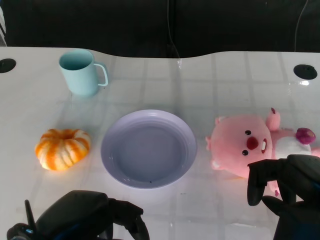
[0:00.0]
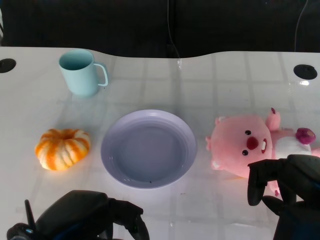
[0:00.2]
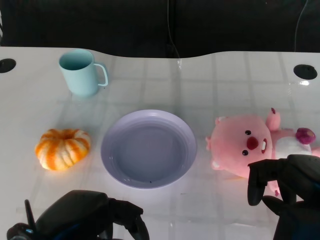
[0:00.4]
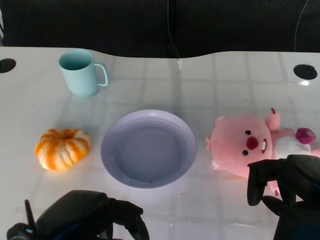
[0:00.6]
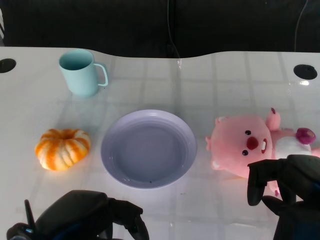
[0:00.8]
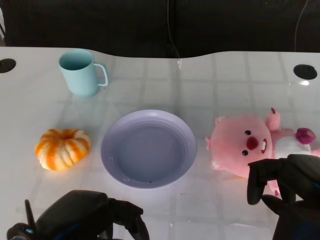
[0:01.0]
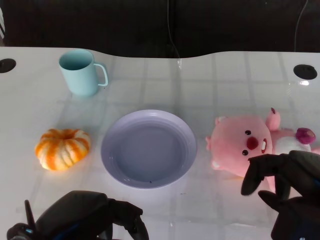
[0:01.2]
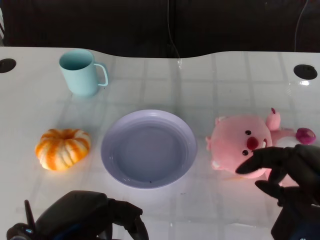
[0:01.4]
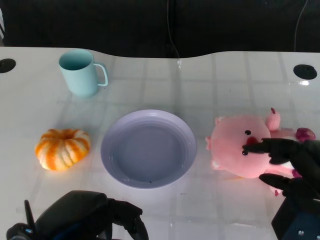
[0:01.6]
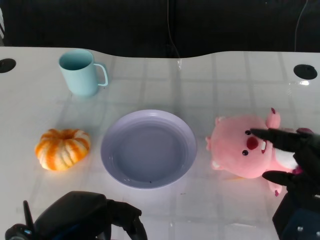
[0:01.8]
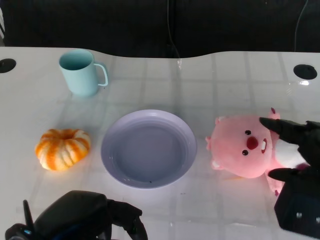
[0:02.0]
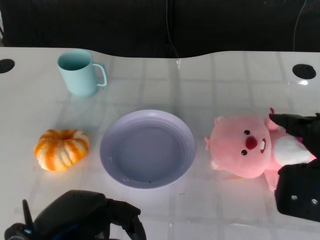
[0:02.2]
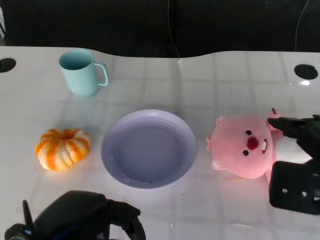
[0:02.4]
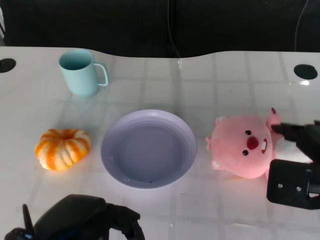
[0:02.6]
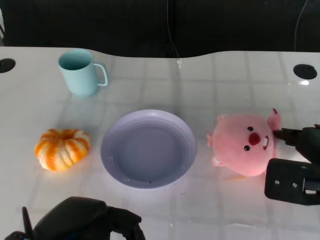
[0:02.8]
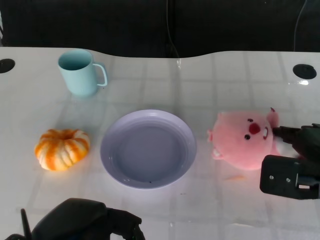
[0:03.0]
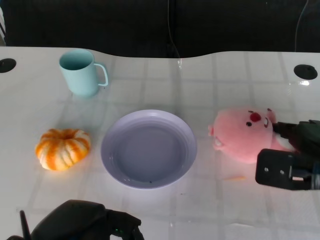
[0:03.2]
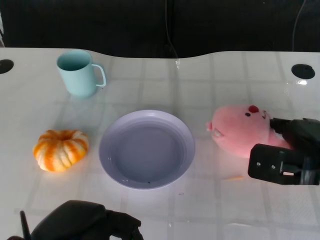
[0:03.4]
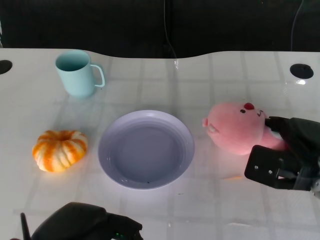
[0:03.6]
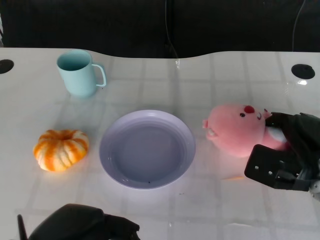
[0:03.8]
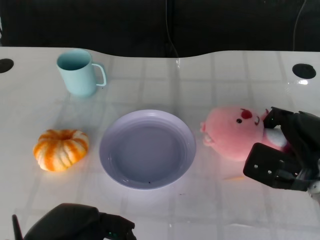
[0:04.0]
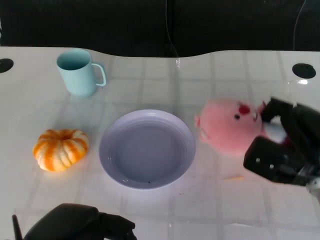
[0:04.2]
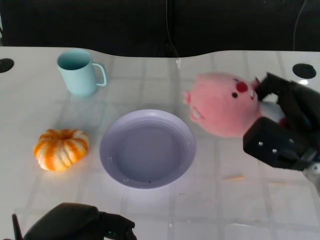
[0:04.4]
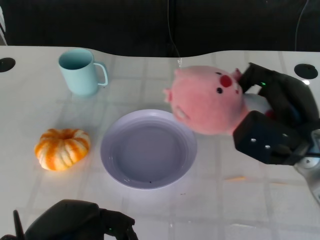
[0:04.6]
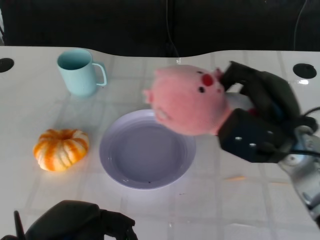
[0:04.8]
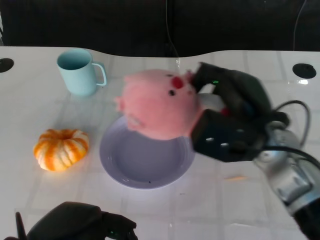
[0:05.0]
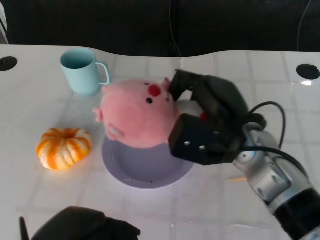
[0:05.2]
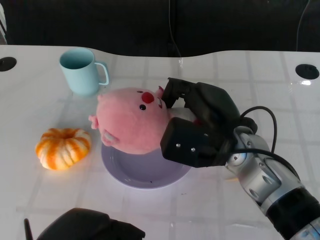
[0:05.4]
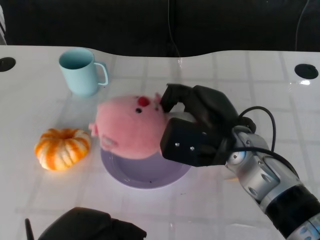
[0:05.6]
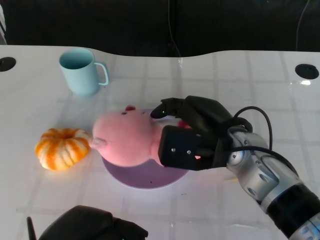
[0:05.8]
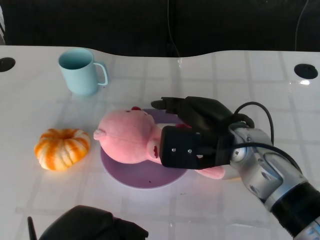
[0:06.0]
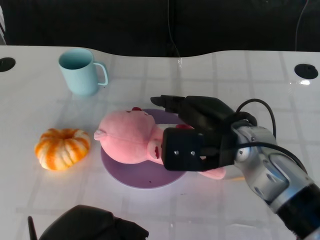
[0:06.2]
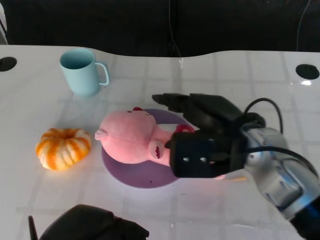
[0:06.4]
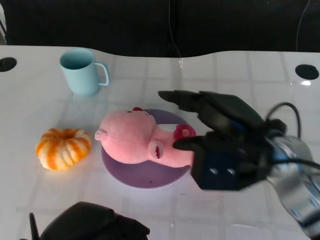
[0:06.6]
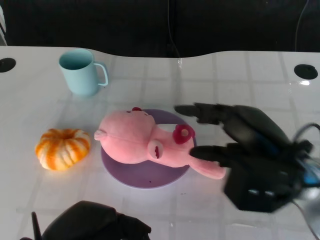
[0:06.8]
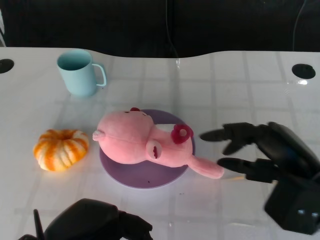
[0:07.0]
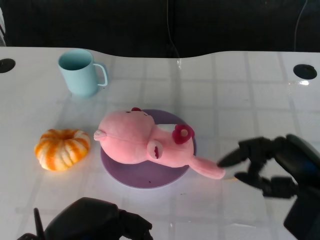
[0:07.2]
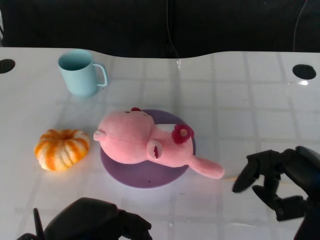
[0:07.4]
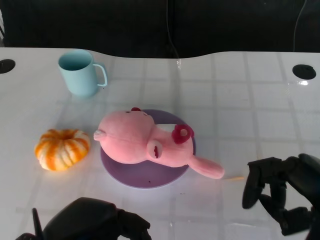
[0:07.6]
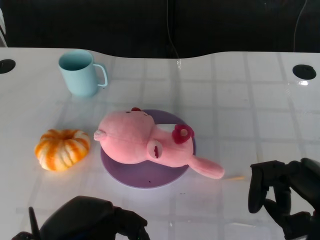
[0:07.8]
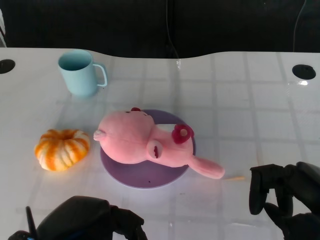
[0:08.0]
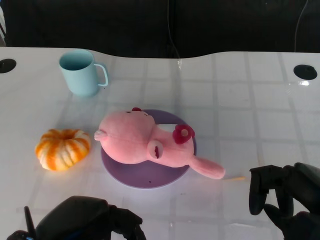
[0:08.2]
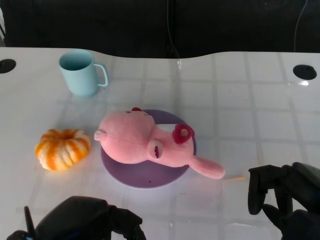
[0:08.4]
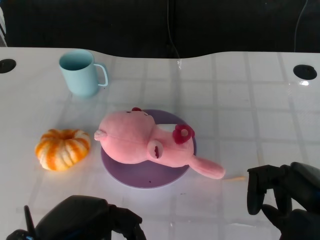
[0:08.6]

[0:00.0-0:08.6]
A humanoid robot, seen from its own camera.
Task of the whole recording: Pick up the doll on the other side of the plate and place it into the plate.
Step, 1.2 to 4.6 s: Grasp the pink doll with the right gripper.
Step, 4.8 to 6.8 s: Place the pink doll into the plate with the right gripper.
1.4 to 2.8 s: The right hand goes about 5 cm forward.
2.8 to 4.4 s: The right hand ends up about 5 cm from where it was.
4.4 to 5.8 s: The right hand is displaced to the left by about 10 cm.
5.8 to 7.2 s: The right hand heads to the right and backward, covering approximately 15 cm.
7.2 to 8.6 s: The hands stay close to where they were, moving slightly.

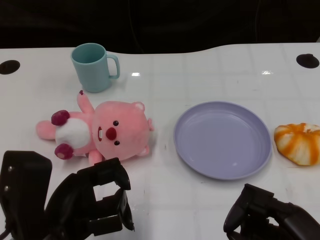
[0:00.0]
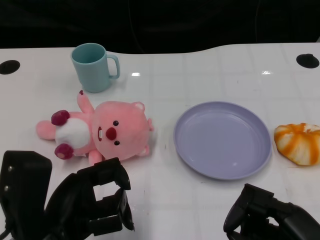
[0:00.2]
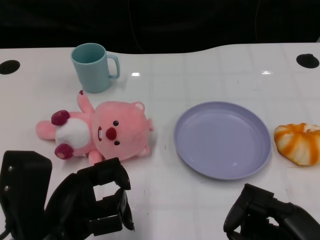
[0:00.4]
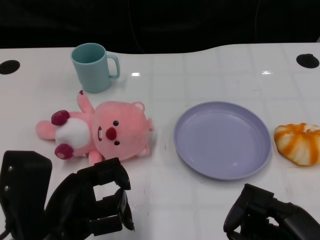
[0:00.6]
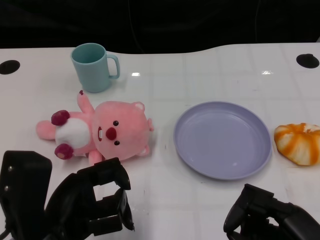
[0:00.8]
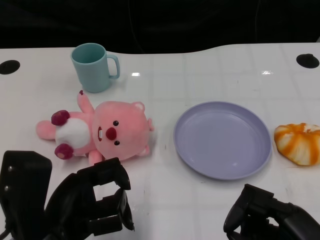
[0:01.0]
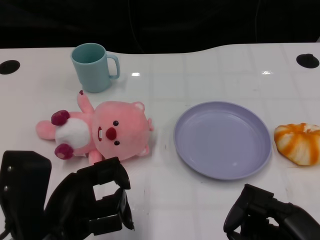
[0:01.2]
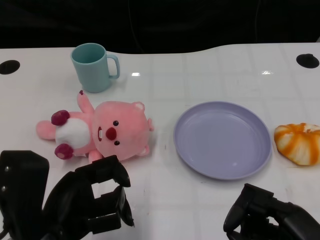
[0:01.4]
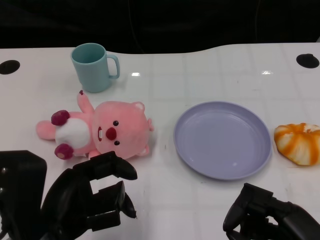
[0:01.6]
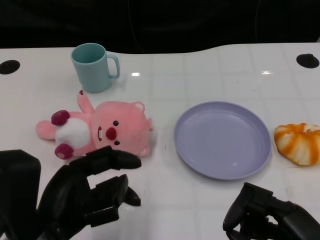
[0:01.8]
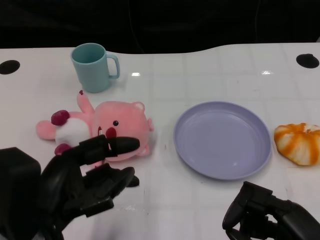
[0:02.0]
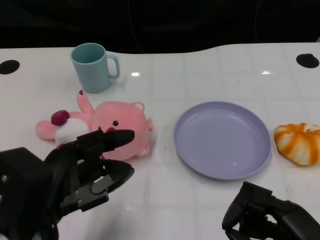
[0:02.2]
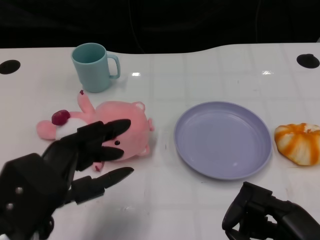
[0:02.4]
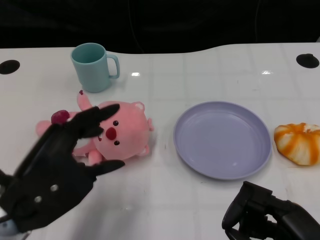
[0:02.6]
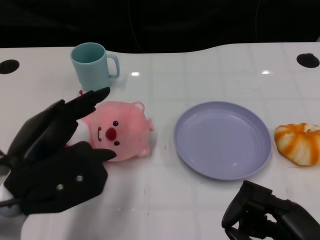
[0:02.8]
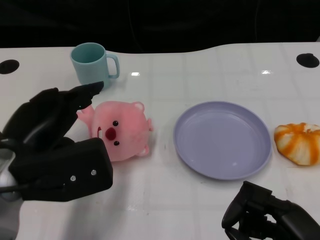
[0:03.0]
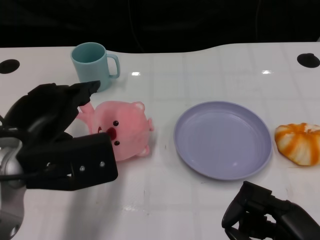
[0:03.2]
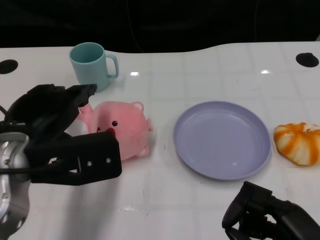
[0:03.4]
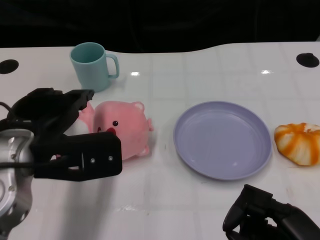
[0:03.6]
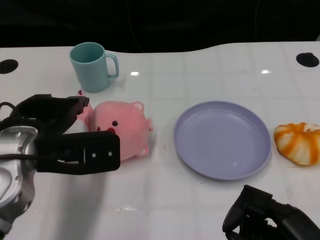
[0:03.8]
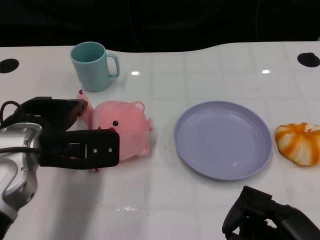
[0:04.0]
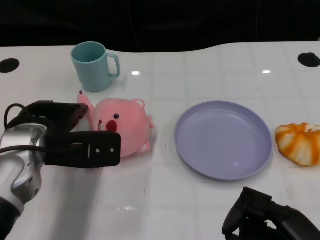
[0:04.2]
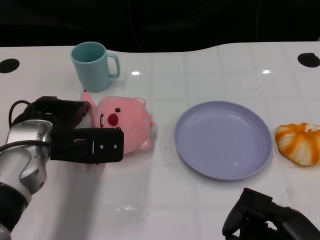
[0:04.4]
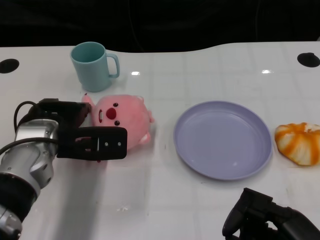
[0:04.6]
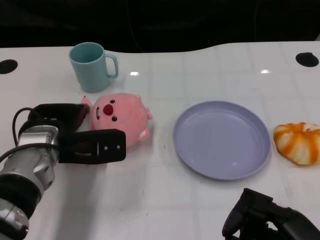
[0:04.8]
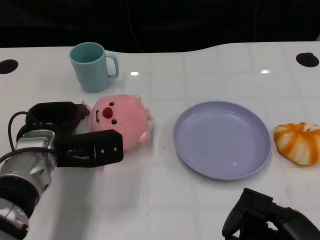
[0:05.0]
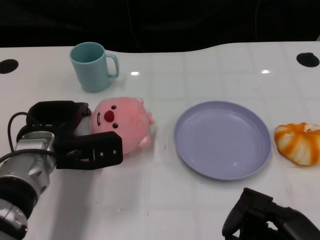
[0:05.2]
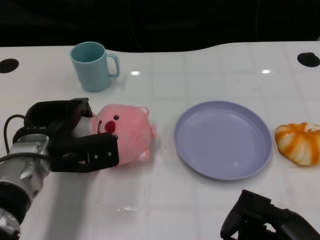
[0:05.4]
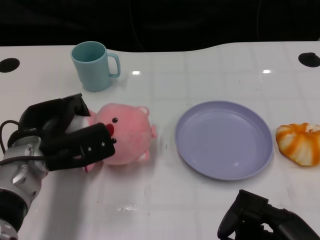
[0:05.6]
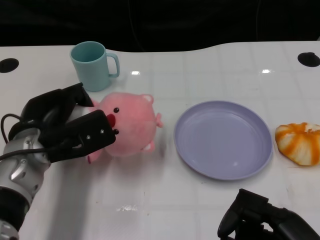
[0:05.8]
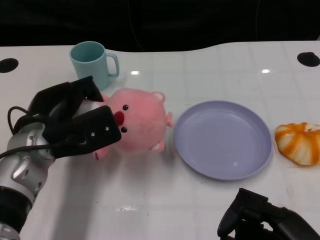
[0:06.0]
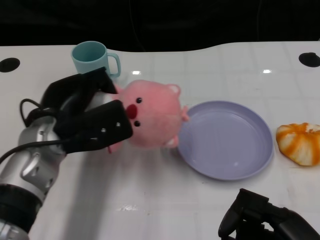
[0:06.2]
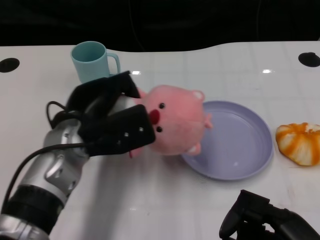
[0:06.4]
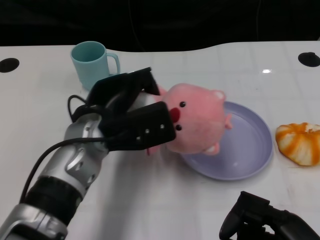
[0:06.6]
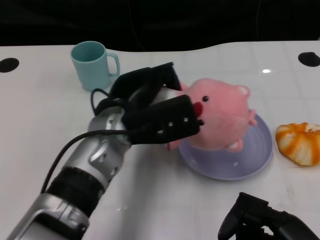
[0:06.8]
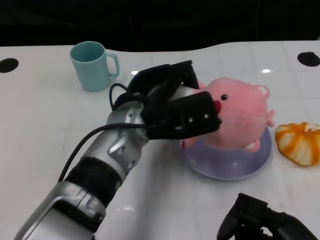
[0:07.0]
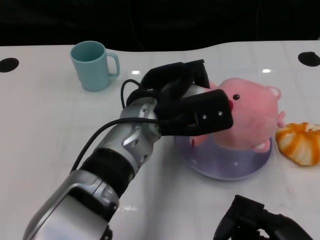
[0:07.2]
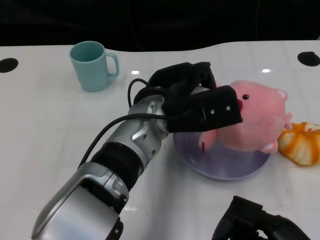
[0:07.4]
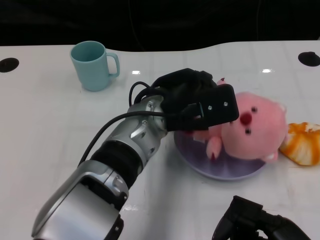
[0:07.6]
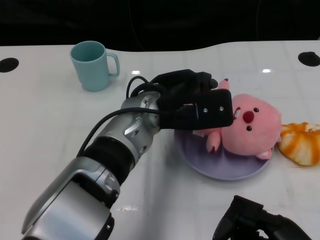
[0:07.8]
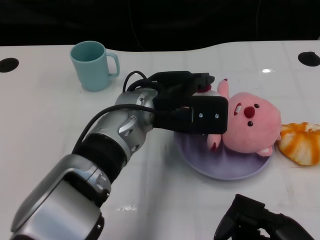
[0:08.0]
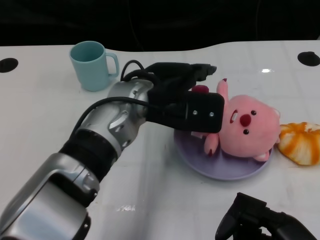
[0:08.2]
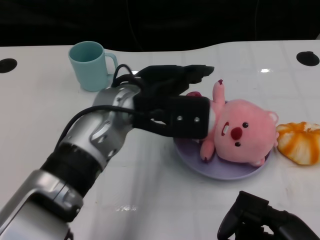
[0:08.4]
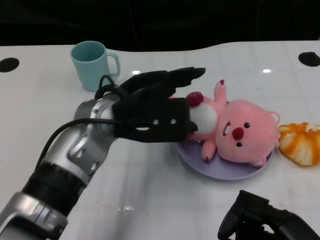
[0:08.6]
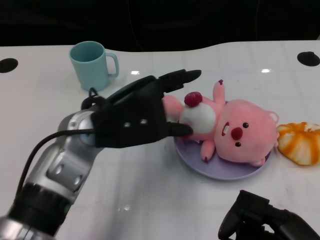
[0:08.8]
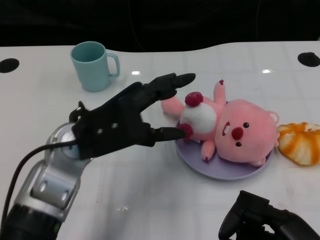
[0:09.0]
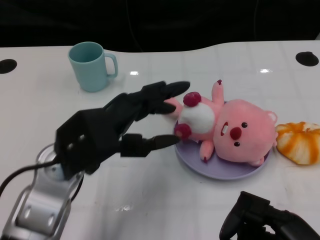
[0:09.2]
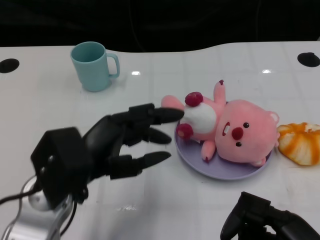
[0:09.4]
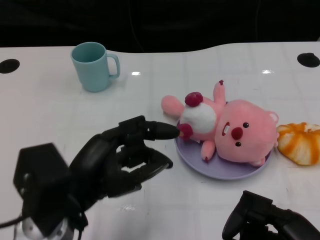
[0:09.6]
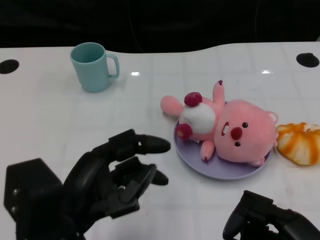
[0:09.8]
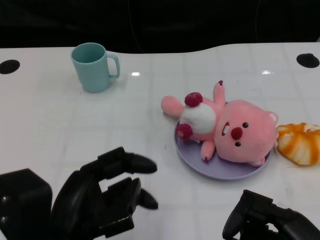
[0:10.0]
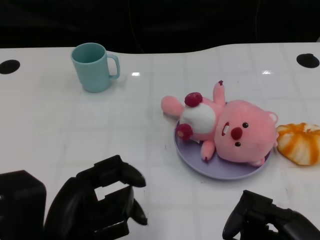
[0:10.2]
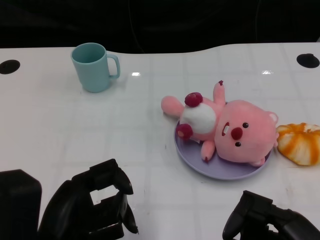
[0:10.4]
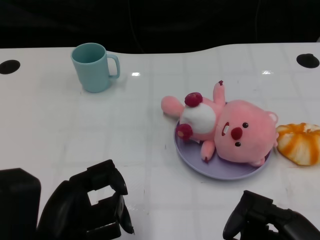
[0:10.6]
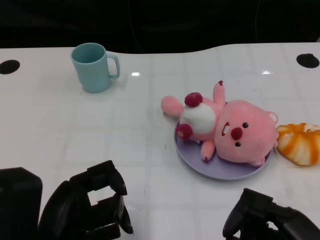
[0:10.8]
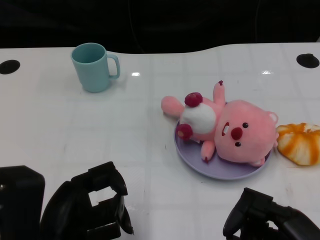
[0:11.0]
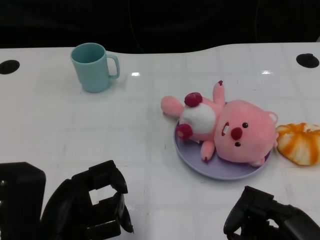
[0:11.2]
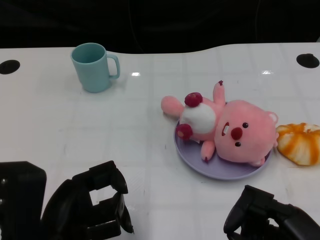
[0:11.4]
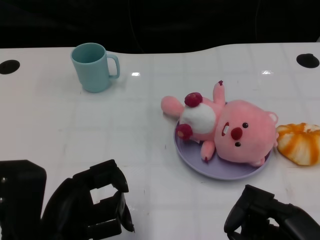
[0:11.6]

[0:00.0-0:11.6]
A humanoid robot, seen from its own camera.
Task of the whole recording: Pick up the doll on one side of the plate and place it into the plate.
Step, 1.4 to 6.0 s: Grasp the pink doll with the left gripper.
Step, 6.2 to 8.0 s: Place the pink doll into the plate with the left gripper.
1.4 to 2.8 s: The left hand changes place by about 5 cm.
2.8 to 4.4 s: The left hand goes some 10 cm forward.
5.8 to 7.2 s: The left hand travels to the right by approximately 15 cm.
7.2 to 8.8 s: The left hand shifts some 10 cm to the left.
8.8 to 10.2 s: The left hand goes about 15 cm backward.
10.2 to 11.6 s: The hands move only a little.

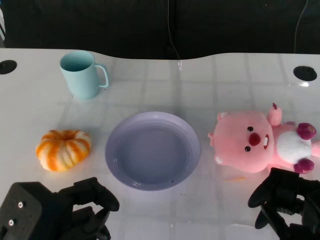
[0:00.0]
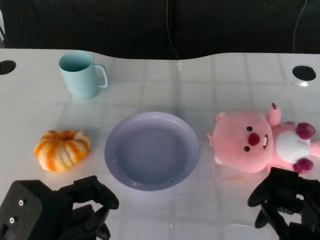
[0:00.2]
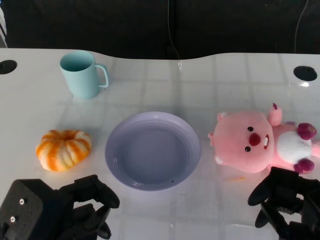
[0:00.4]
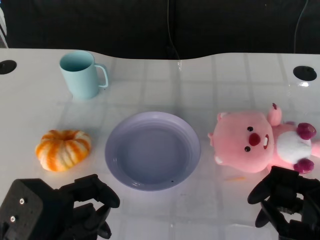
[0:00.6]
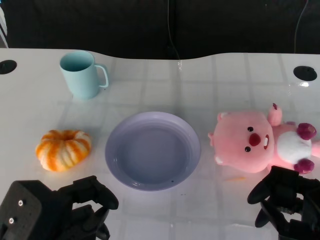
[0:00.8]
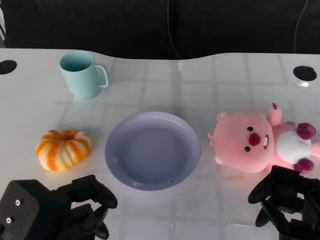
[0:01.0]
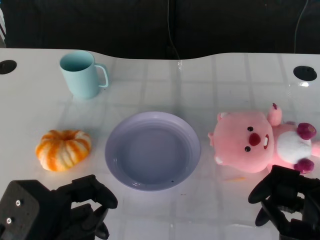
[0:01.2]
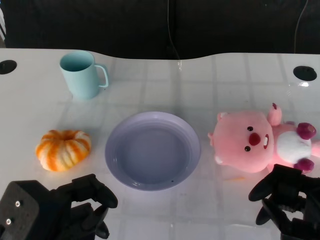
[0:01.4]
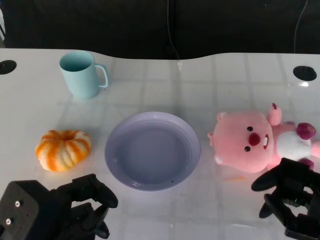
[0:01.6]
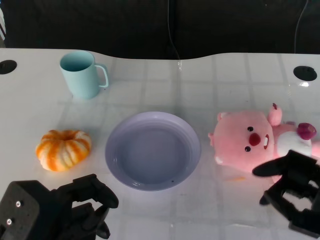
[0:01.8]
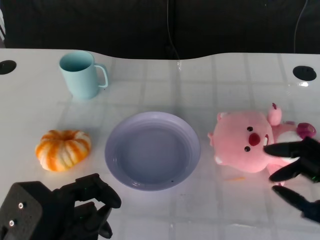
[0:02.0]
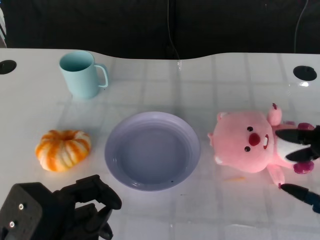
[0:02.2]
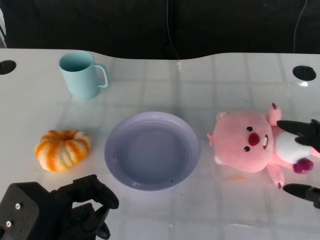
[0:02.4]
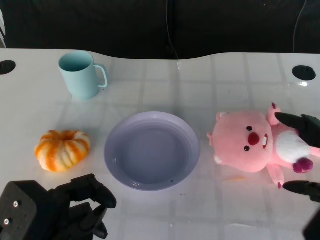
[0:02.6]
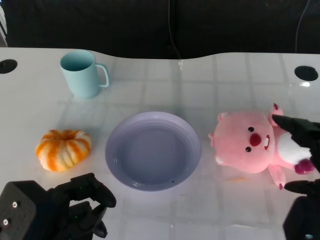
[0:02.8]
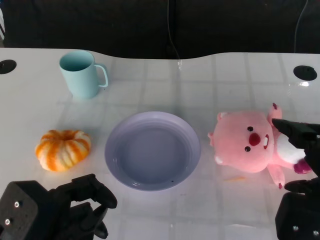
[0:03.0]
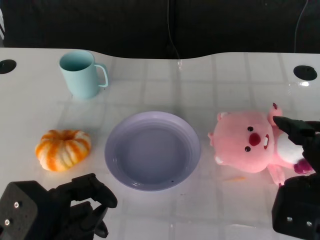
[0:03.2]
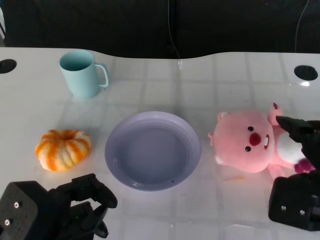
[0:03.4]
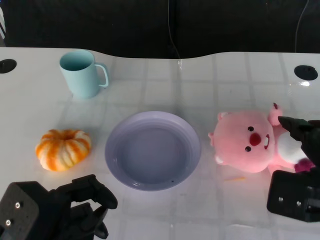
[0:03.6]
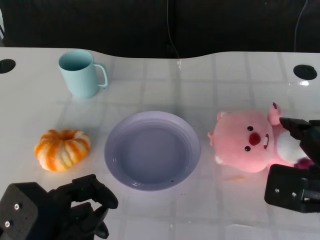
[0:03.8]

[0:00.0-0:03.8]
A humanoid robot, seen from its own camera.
Task of the whole recording: Pick up the doll on the other side of the plate and place it into the plate.
1.2 to 2.6 s: The right hand is displaced upward by some 5 cm.
2.6 to 3.8 s: The right hand shifts roughly 10 cm forward.
